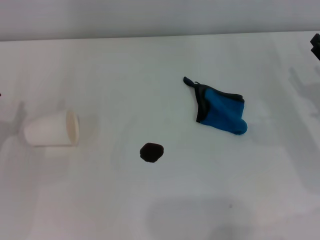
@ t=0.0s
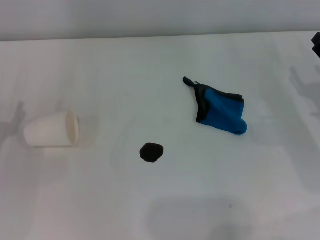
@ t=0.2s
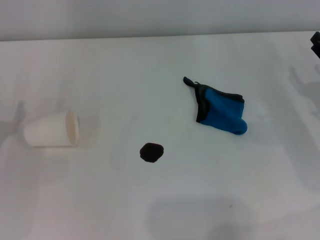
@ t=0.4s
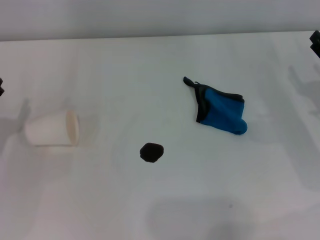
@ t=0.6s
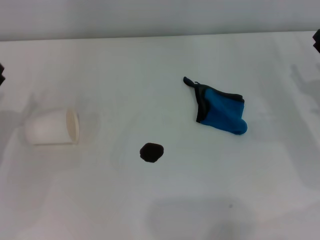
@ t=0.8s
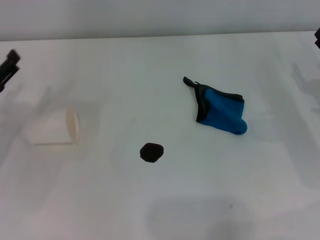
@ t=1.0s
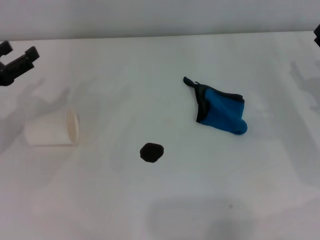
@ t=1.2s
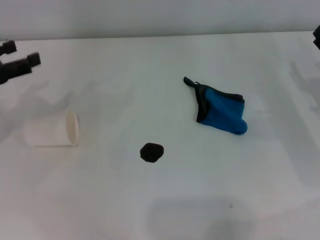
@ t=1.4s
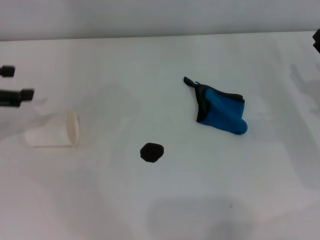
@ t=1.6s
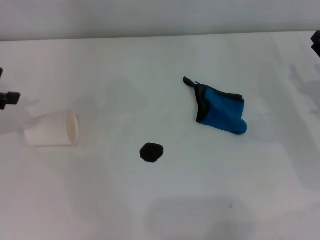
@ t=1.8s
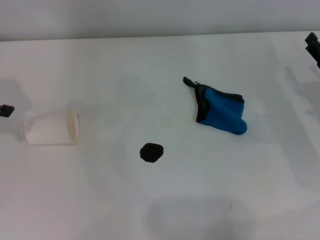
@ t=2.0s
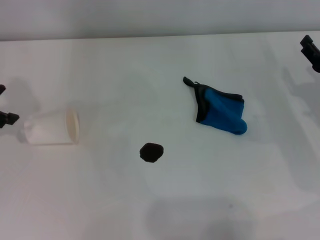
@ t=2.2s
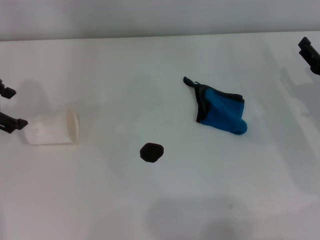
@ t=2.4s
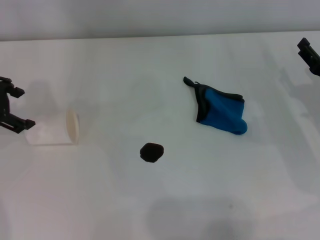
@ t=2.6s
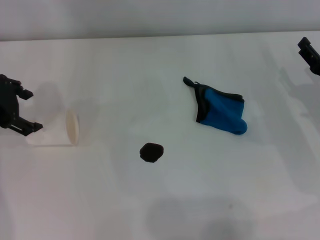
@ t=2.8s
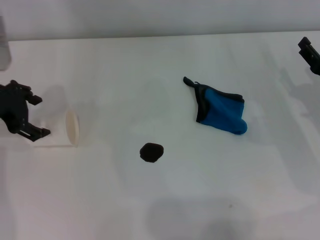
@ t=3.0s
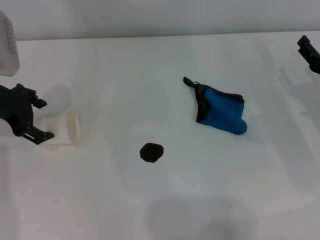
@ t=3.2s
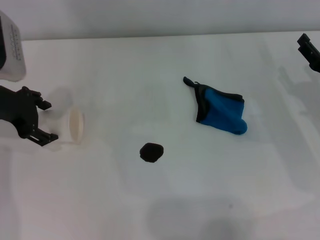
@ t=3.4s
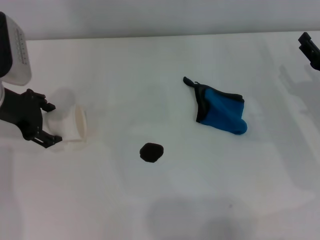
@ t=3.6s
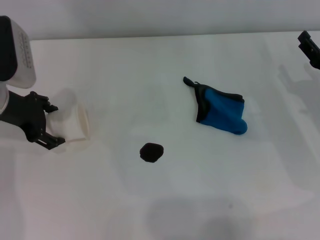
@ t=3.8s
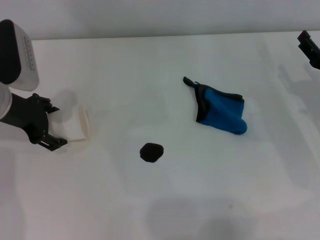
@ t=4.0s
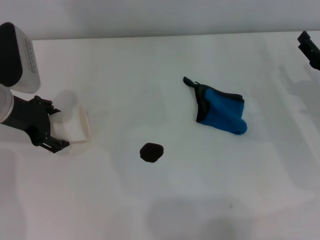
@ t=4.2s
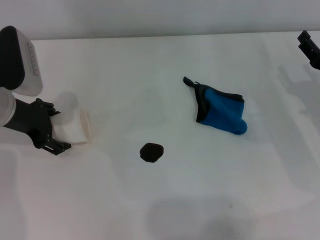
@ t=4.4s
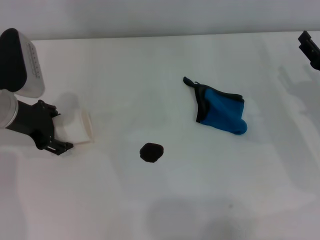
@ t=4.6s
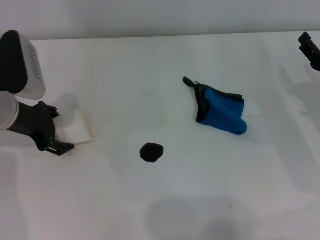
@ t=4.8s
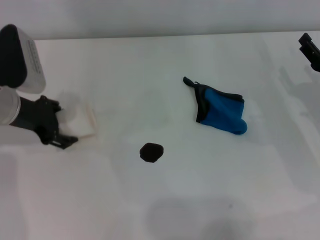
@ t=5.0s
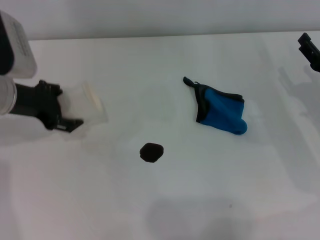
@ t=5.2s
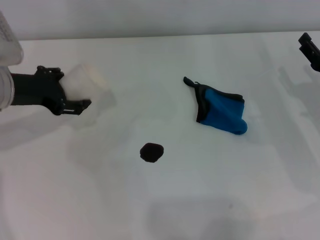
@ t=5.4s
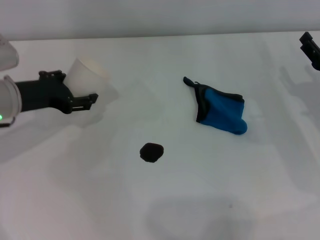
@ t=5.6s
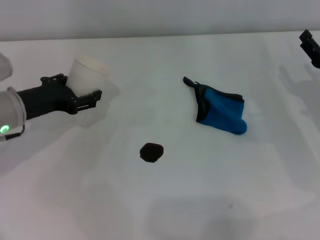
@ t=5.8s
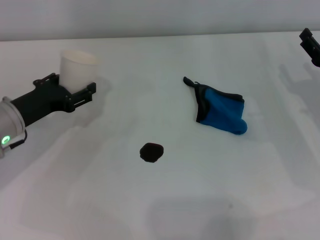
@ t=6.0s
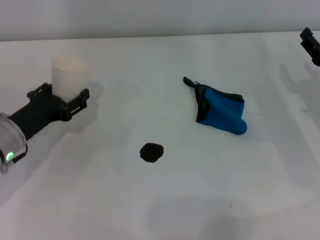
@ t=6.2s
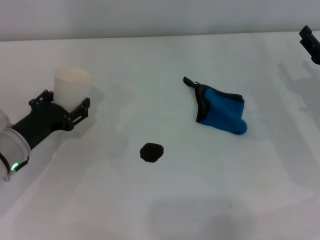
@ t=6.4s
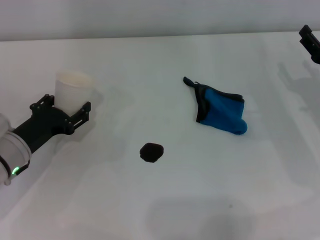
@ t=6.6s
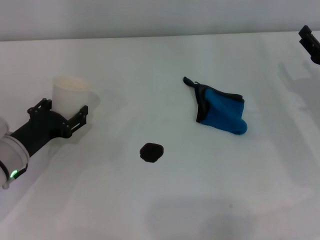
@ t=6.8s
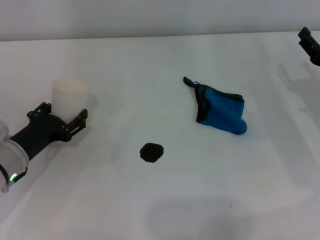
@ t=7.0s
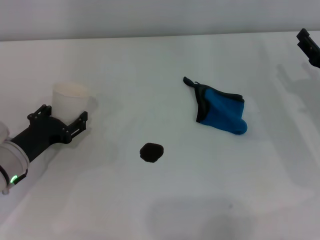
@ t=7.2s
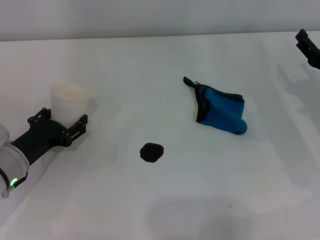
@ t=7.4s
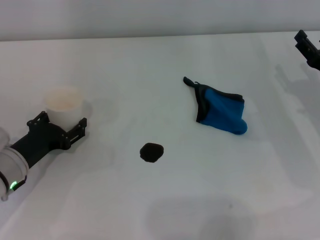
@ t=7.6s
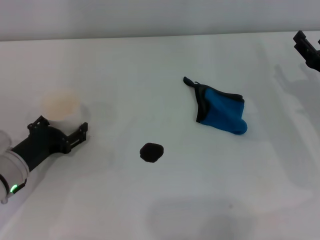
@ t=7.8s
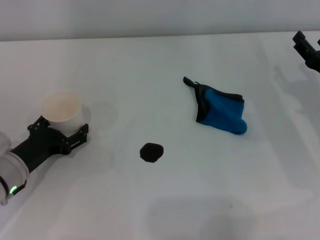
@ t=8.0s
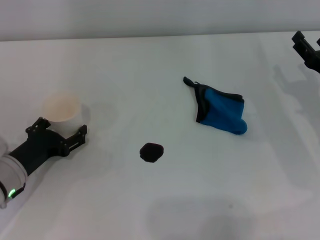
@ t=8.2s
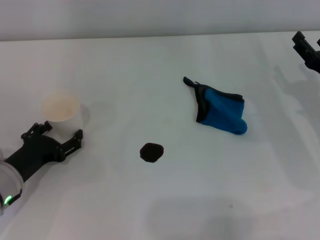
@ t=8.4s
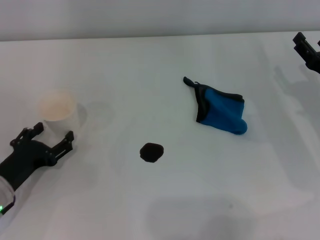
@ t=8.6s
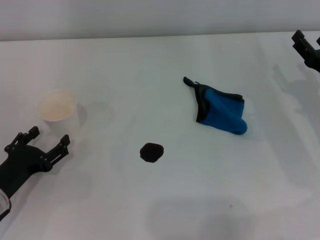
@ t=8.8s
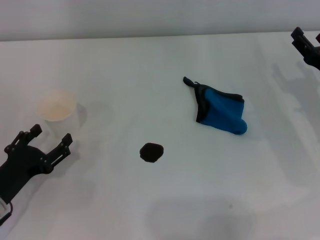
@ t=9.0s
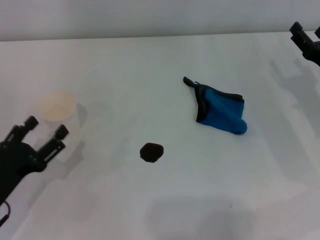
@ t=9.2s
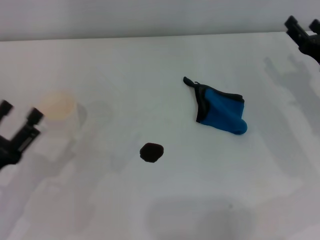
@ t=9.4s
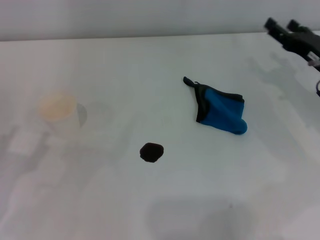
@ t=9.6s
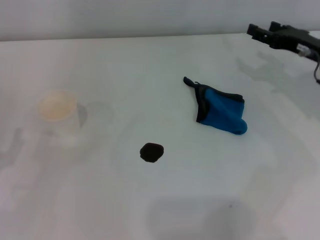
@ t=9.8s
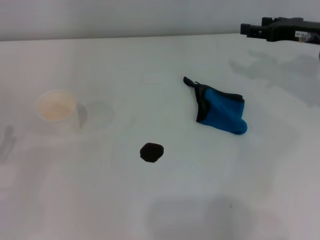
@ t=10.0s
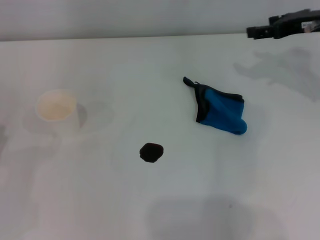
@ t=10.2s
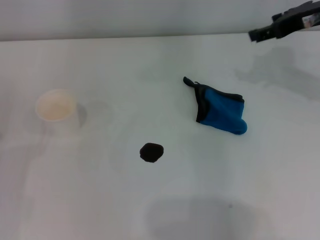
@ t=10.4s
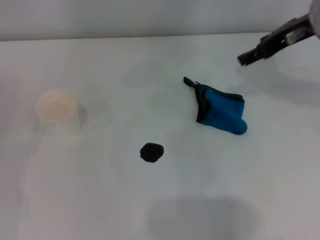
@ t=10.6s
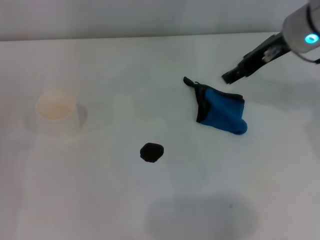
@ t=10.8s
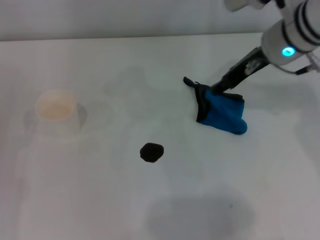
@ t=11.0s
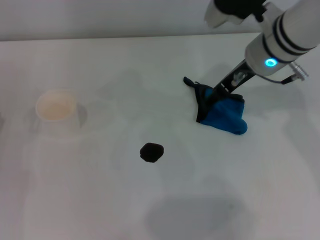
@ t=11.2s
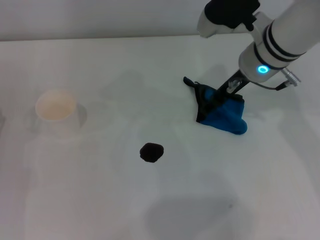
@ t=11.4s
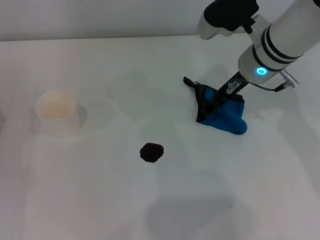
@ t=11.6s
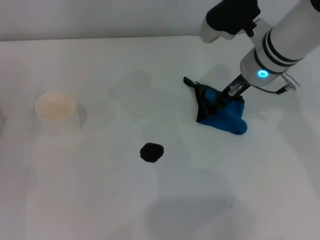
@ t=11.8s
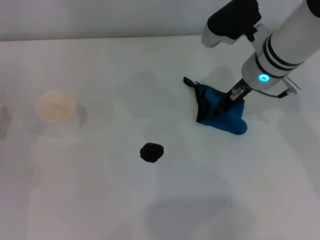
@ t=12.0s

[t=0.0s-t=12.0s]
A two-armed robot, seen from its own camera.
Step, t=0.0s to t=4.8s: Grasp the paper cup with the left gripper.
Step, t=5.0s to t=8.2s: Stand the paper cup upright with the left gripper.
t=0.0s to t=1.6s: The left gripper is displaced upward and forward by some 15 cm.
t=1.6s to t=3.0s: The left gripper shifts about 10 cm to the right.
t=3.0s to t=4.4s: The left gripper shifts by roughly 5 cm.
t=4.4s to t=6.0s: The left gripper travels downward by some 5 cm.
t=6.0s to t=7.6s: The left gripper goes about 5 cm downward.
t=7.6s to t=9.0s: The left gripper travels backward by about 5 cm.
t=9.0s to t=10.4s: The right gripper travels upward and forward by some 20 cm. Meanwhile the left gripper is displaced to the left by about 5 cm.
t=10.4s to t=12.0s: The right gripper travels to the left and downward by roughly 15 cm.

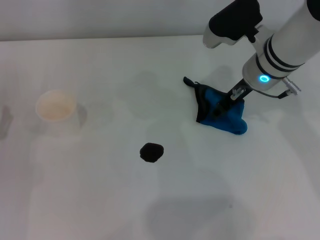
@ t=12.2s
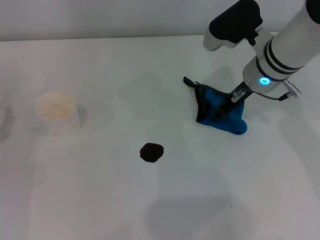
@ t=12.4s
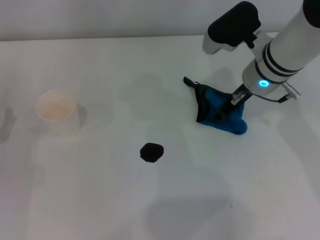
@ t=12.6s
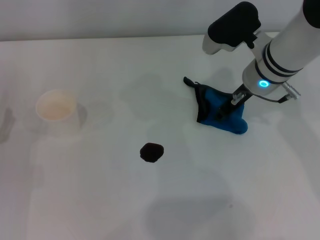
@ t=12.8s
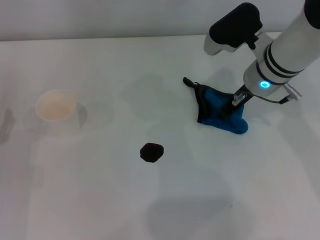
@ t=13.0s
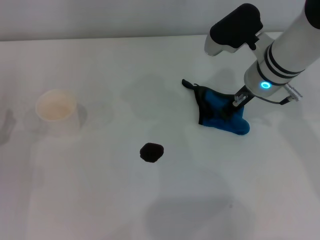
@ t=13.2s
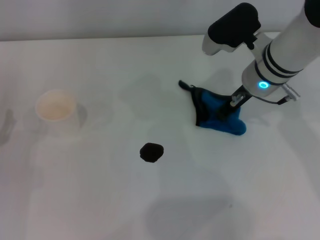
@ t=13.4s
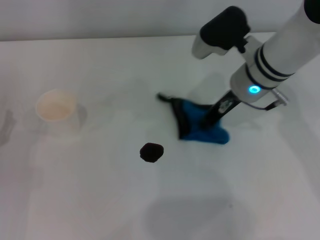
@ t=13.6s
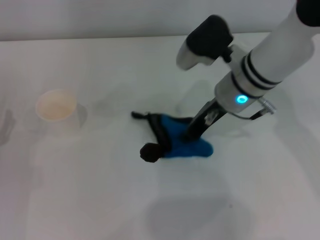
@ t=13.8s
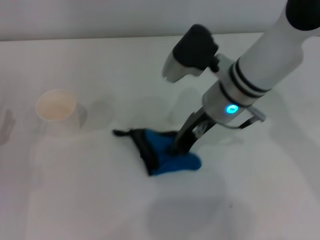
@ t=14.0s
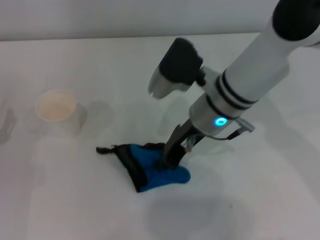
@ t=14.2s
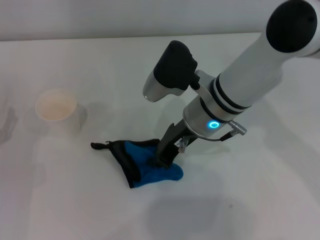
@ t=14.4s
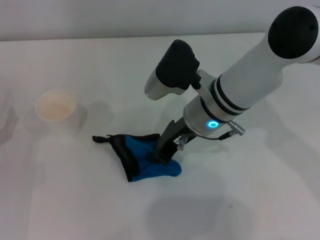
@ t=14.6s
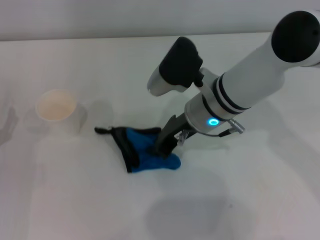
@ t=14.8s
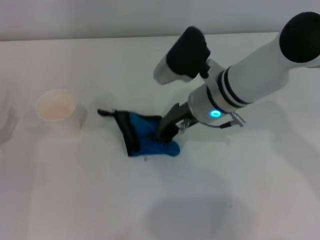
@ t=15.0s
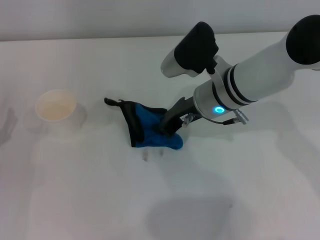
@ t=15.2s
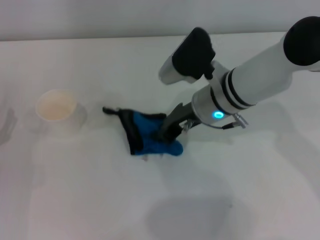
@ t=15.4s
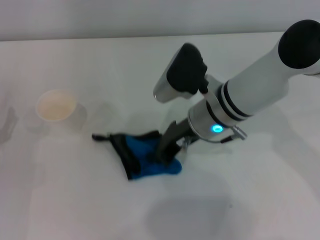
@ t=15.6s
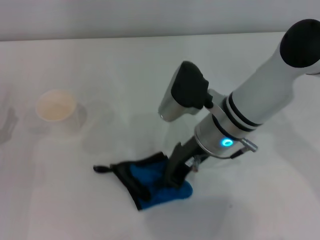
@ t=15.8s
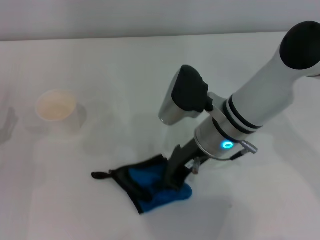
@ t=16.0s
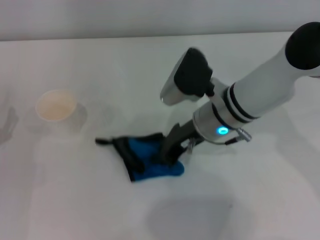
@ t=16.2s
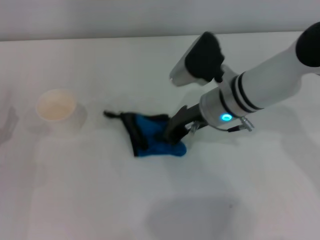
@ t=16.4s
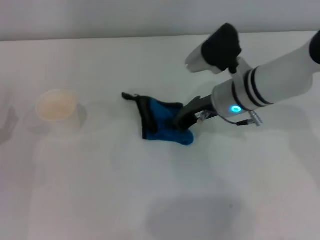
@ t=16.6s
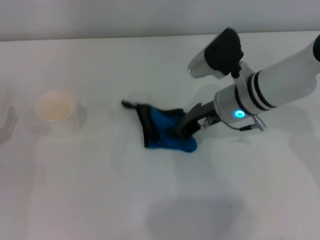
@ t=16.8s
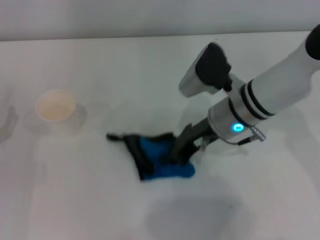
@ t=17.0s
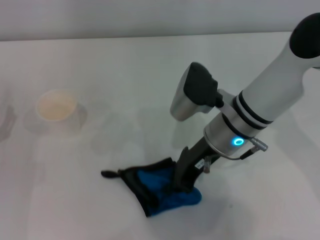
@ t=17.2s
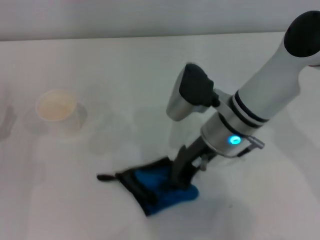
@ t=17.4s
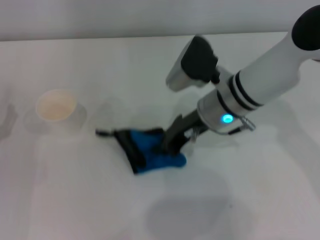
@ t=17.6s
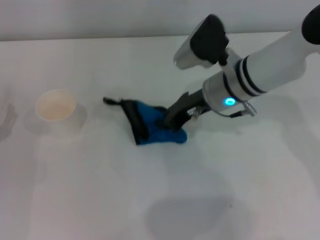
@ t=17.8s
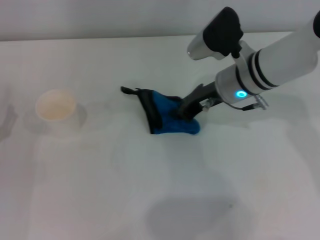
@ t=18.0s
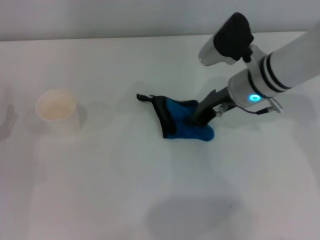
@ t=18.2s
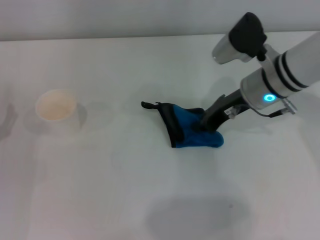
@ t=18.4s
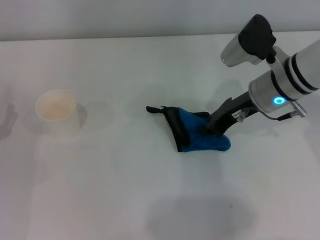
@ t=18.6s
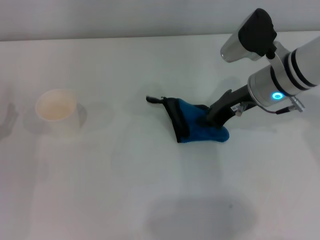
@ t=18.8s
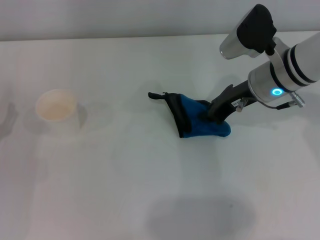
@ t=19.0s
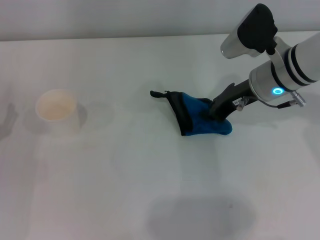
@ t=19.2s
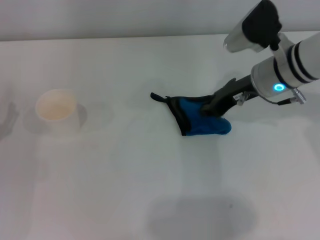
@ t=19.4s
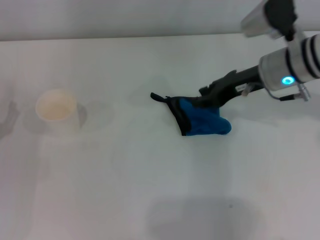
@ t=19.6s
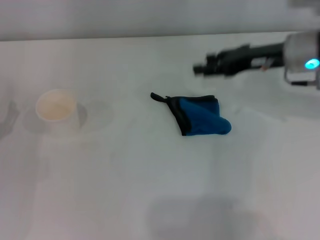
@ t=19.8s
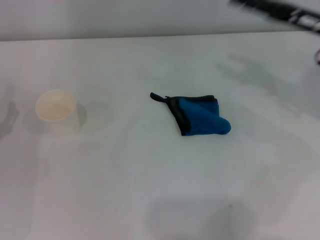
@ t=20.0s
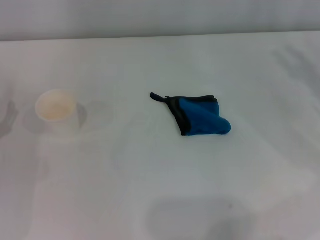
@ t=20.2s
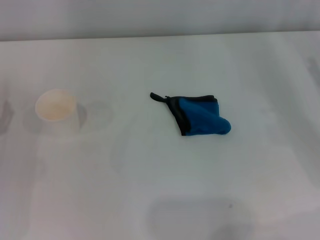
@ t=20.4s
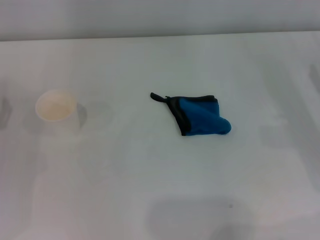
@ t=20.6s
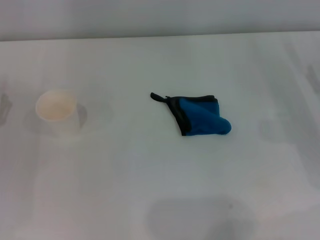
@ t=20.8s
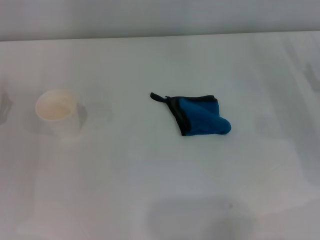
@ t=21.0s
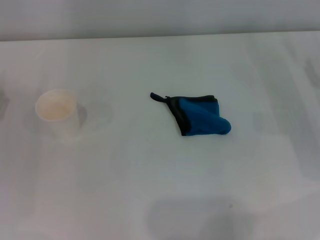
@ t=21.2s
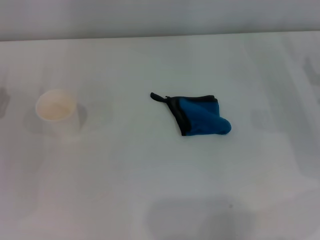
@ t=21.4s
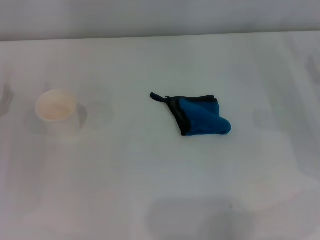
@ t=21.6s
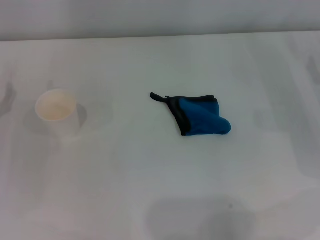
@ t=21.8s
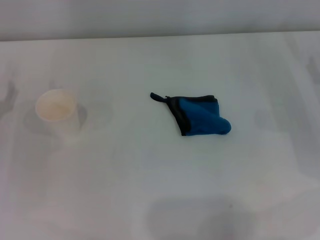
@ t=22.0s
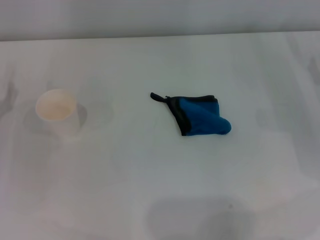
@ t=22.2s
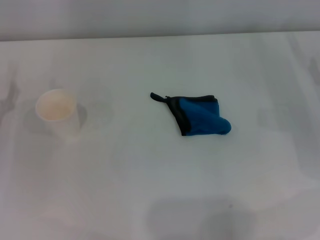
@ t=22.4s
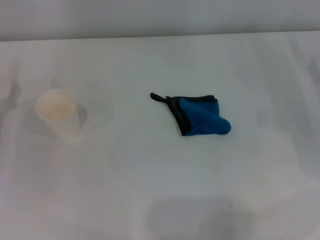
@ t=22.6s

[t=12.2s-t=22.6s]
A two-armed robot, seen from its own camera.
Step, t=13.4s to t=18.4s: Wipe the stains off the table with the right gripper.
Step, t=18.6s to t=19.2s: Place the rag on the table with the right gripper.
t=12.2s to t=13.6s: The right gripper closes its fingers.
t=18.2s to t=19.6s: The right gripper moves about 5 cm.
t=19.6s to t=21.2s: The right gripper moves to the right, downward and backward, approximately 20 cm, and opens its fingers.
